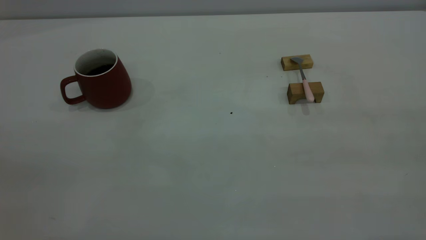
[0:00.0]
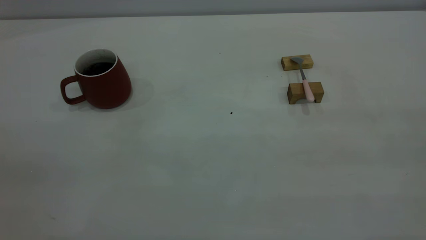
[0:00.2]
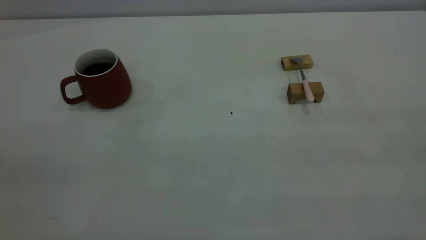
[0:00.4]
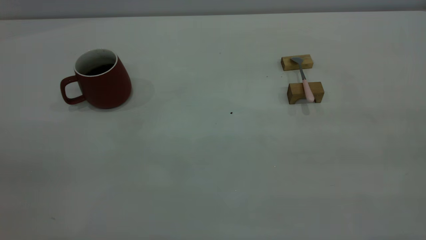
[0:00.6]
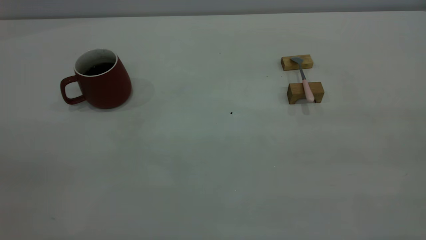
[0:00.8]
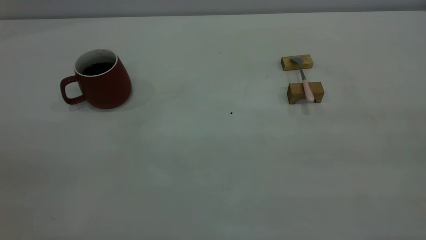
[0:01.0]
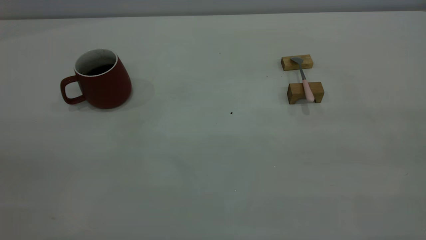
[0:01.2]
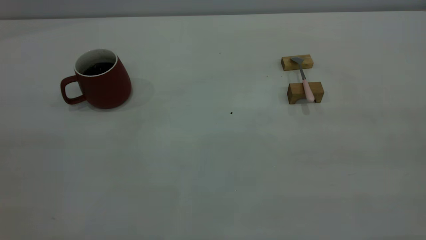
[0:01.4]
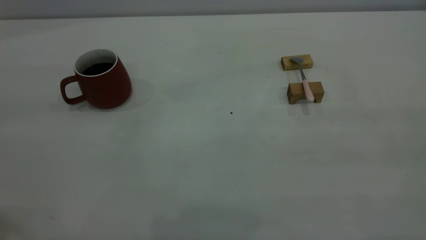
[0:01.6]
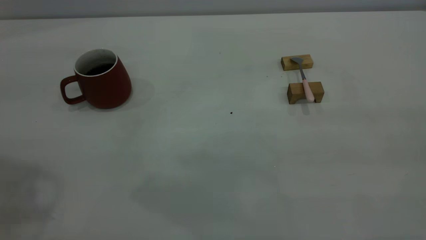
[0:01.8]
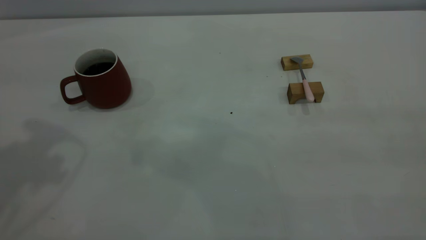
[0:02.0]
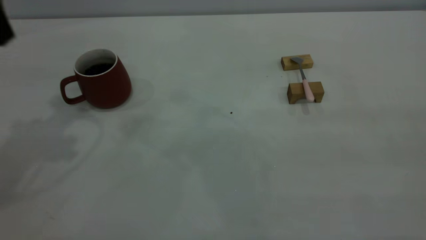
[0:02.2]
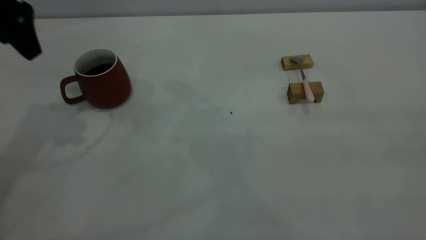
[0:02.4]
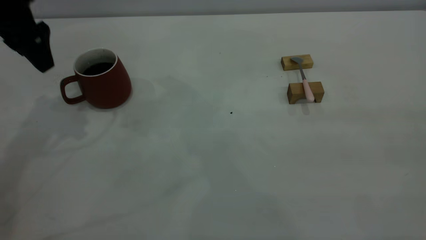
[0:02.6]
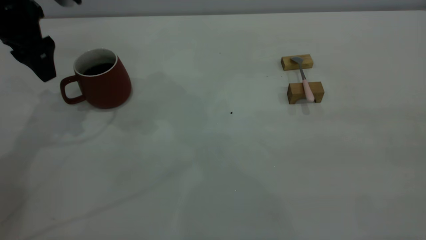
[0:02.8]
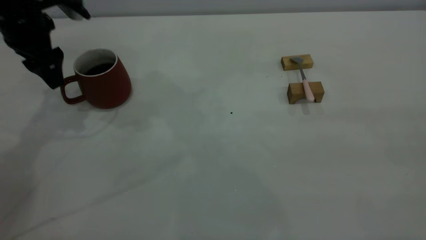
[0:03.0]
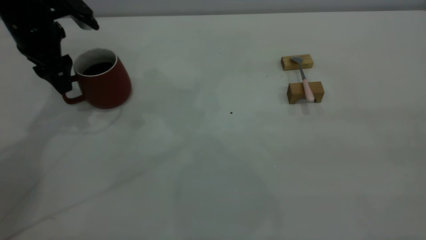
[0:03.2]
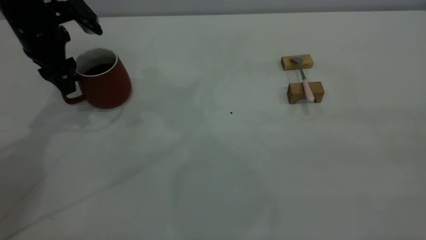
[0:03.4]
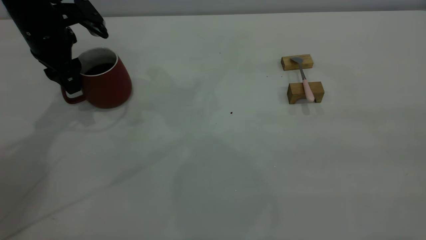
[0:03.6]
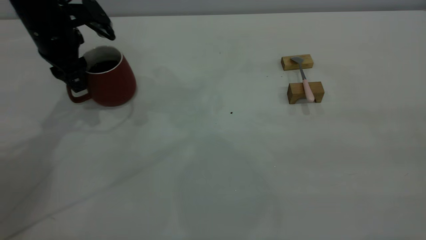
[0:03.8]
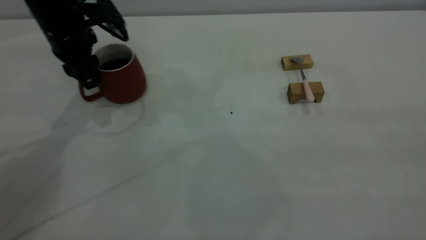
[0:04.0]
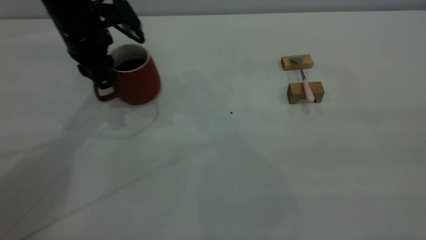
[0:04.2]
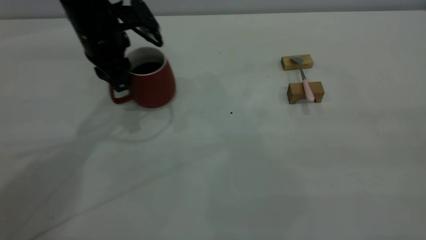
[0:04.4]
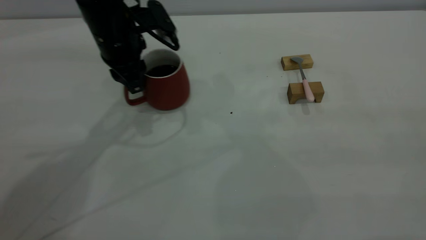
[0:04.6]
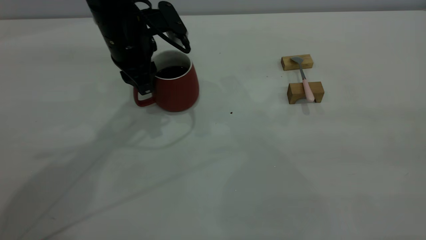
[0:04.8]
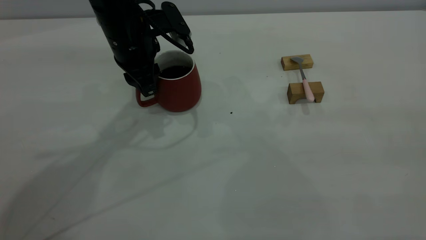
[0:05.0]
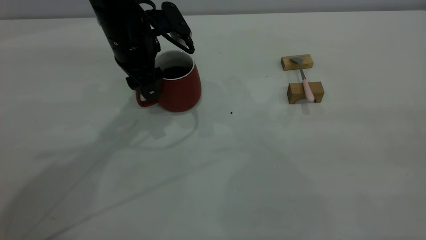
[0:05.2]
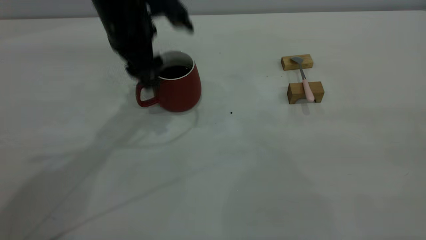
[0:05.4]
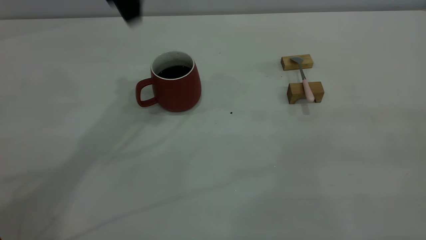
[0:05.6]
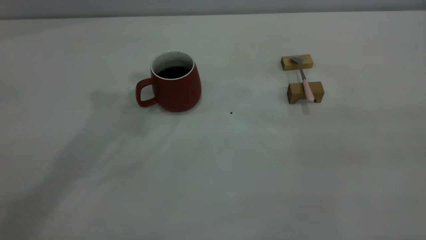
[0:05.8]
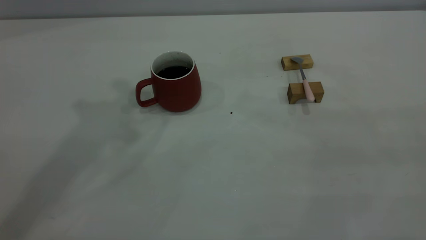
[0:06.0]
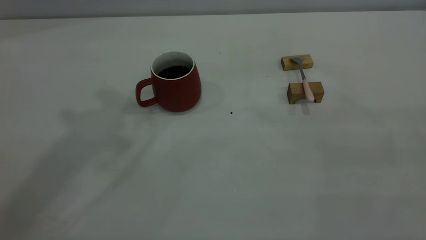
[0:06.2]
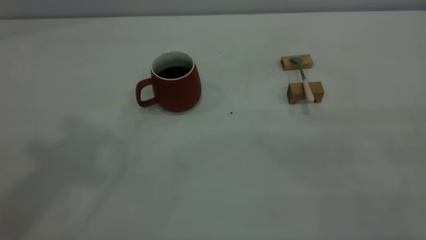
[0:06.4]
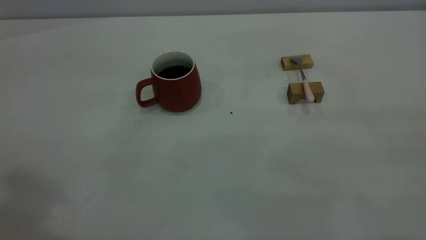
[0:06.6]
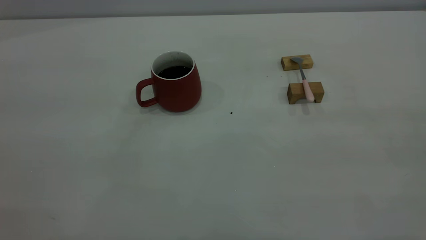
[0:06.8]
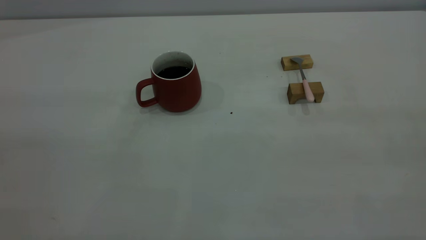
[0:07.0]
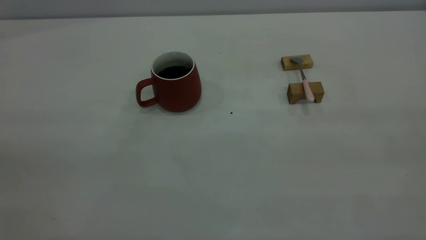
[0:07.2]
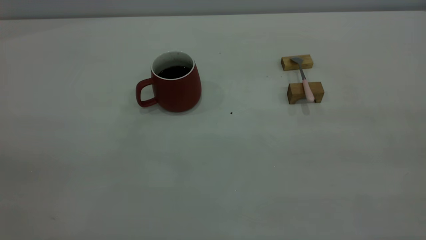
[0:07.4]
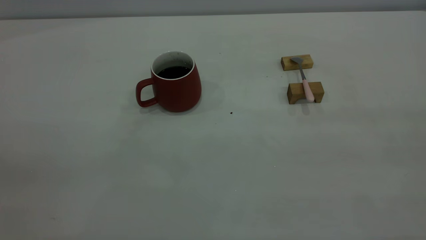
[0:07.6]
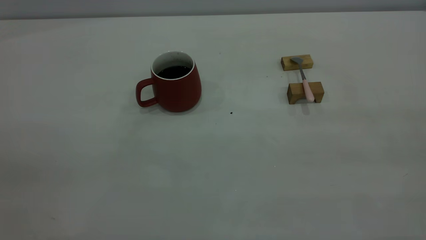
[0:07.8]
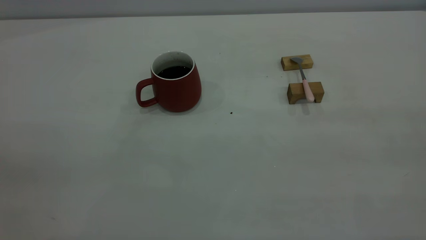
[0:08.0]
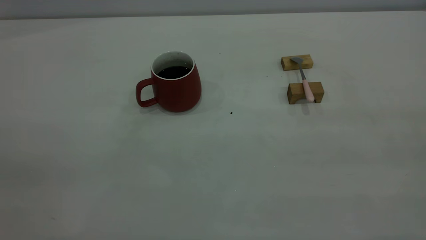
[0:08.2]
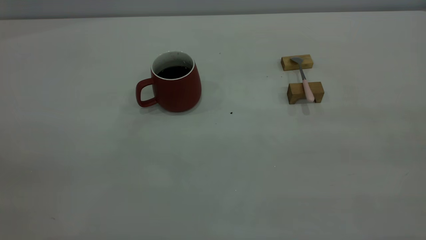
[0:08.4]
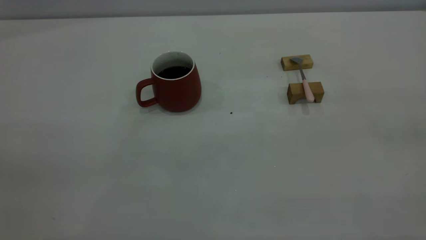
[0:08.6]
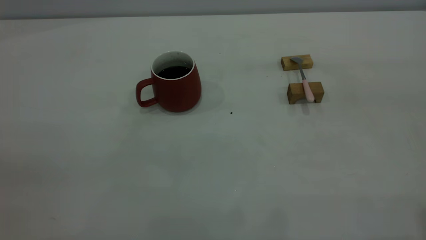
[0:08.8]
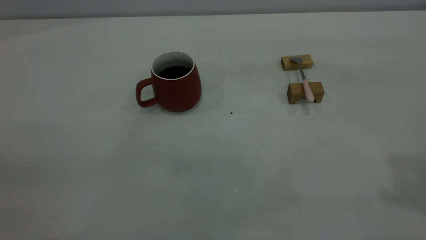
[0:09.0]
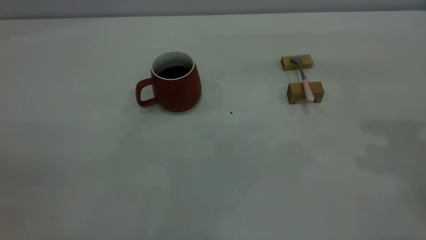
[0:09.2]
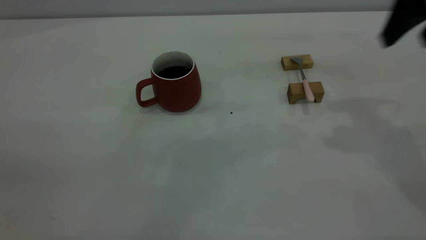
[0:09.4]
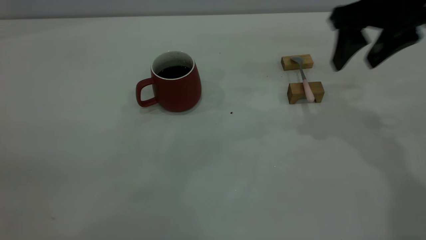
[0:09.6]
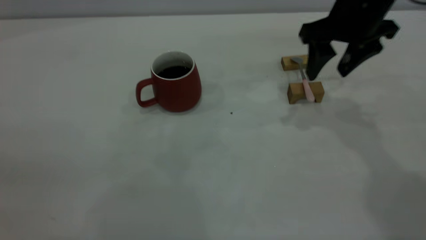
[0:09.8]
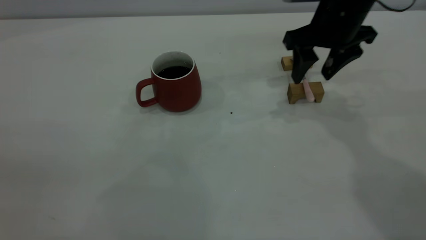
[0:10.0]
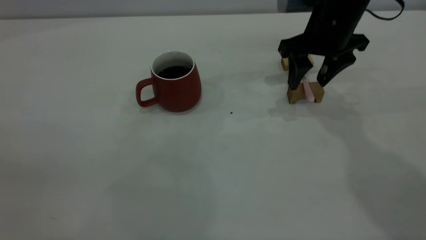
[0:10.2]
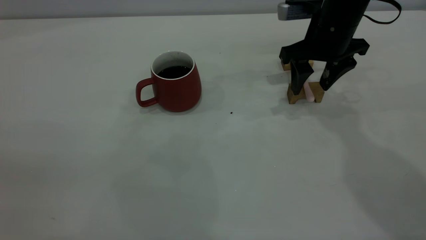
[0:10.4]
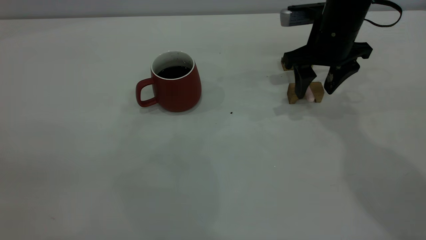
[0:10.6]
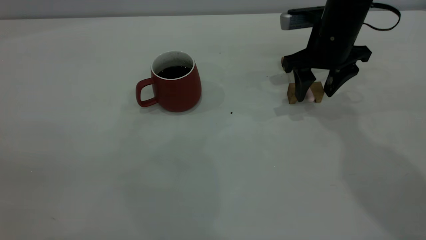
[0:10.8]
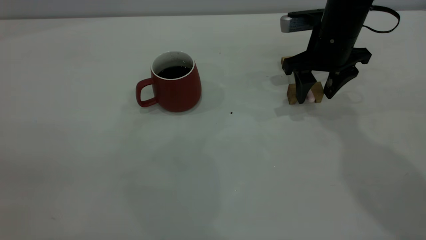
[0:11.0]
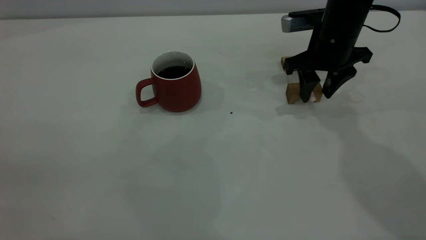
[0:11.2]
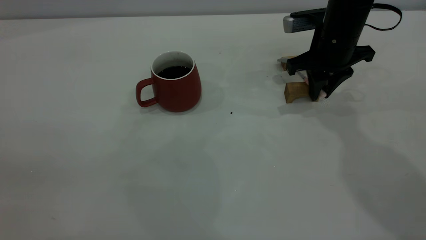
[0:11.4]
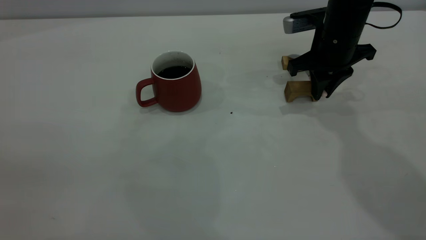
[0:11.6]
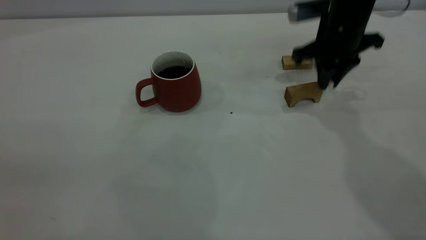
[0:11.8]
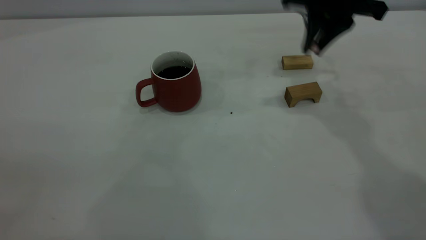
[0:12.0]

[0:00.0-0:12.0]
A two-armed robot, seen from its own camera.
Step, 0:00.0 to 0:05.4: Move the cup with coffee to the center of view.
Step, 0:05.6 to 0:11.6: Pick up the spoon.
0:01.6 to 0:03.0: The left gripper is displaced forward and downward by approximately 35 cm, and opens its fingers.
0:03.0 to 0:04.4: The left gripper travels to the right by approximately 10 cm, and closes.
0:04.4 to 0:06.0: The left gripper travels upward by about 30 cm, and opens, then closes again.
0:09.0 to 0:10.4: The right gripper is displaced downward, forward and to the left by roughly 35 cm.
0:10.4 to 0:12.0: The right gripper moves upward, approximately 10 cm, and closes.

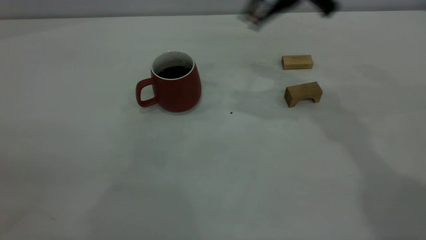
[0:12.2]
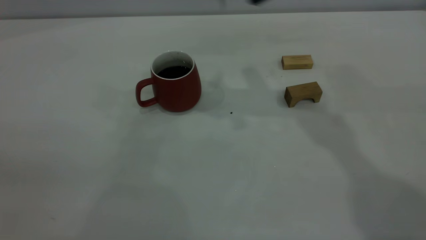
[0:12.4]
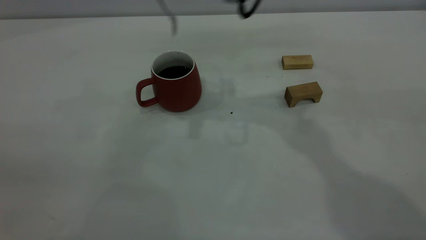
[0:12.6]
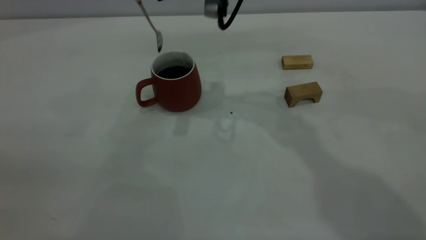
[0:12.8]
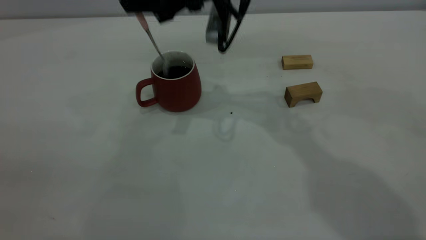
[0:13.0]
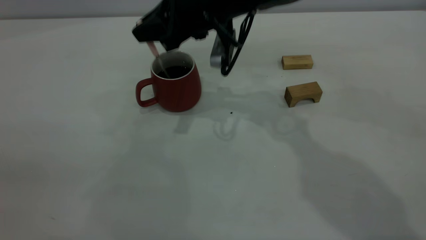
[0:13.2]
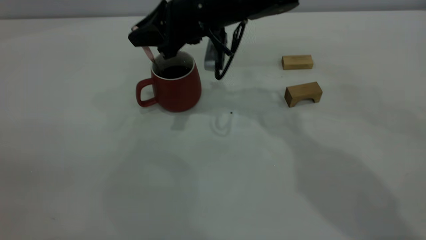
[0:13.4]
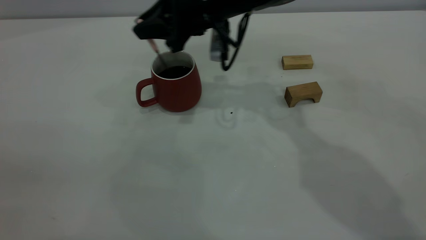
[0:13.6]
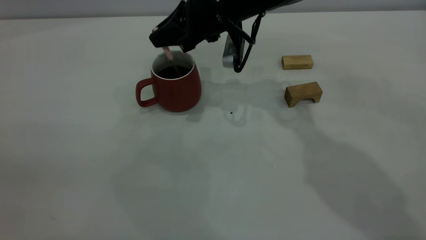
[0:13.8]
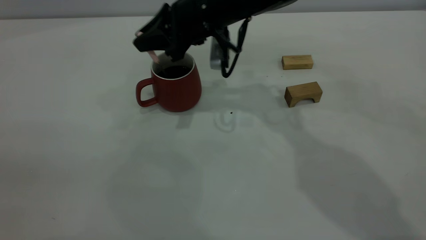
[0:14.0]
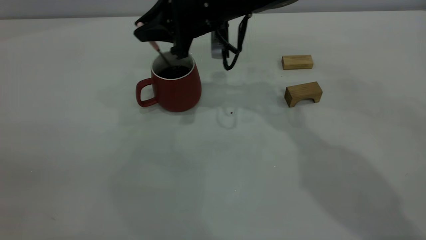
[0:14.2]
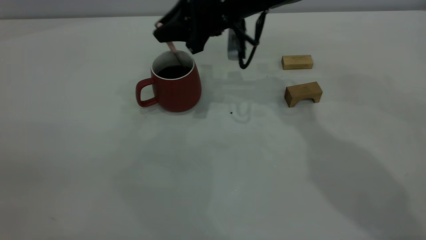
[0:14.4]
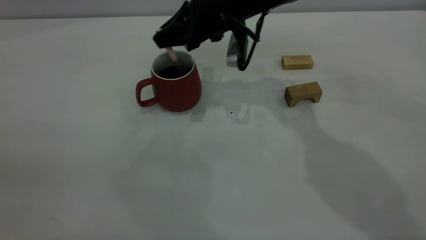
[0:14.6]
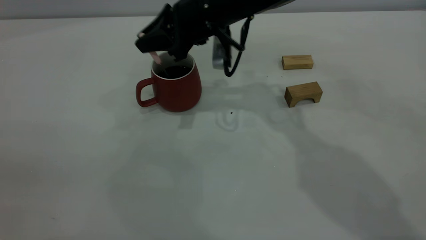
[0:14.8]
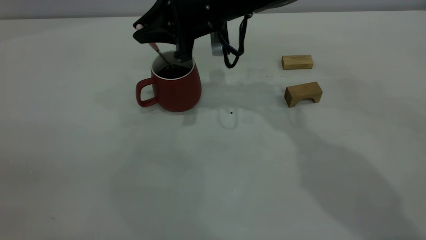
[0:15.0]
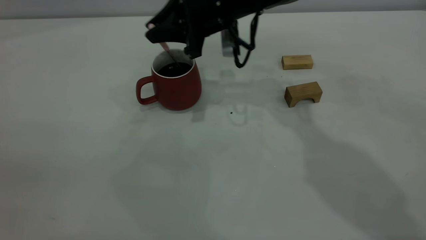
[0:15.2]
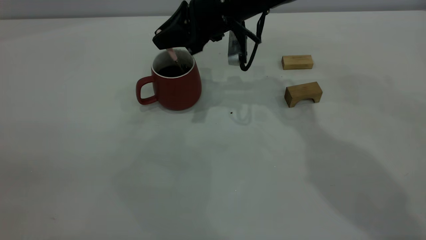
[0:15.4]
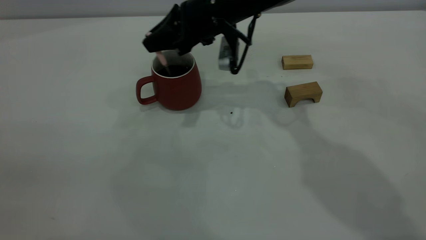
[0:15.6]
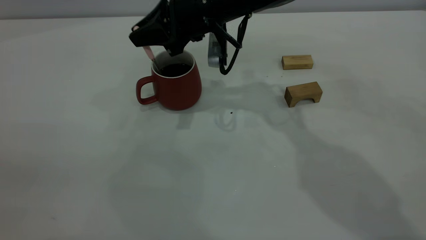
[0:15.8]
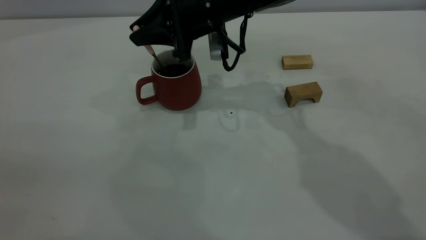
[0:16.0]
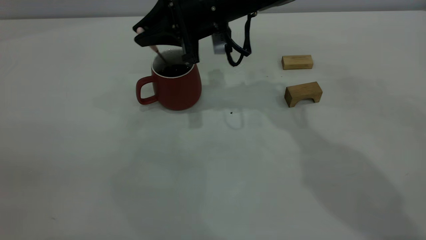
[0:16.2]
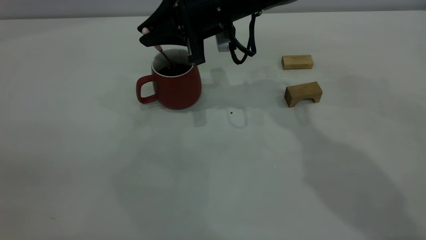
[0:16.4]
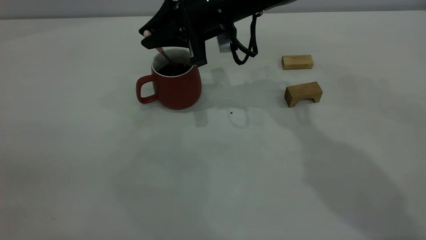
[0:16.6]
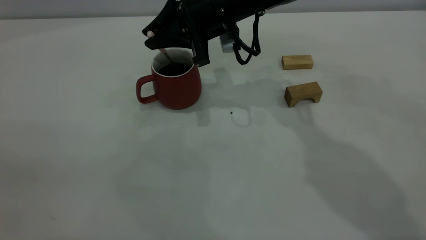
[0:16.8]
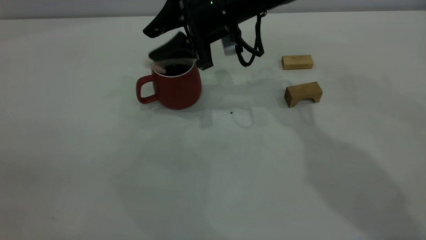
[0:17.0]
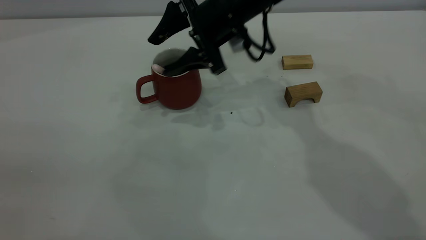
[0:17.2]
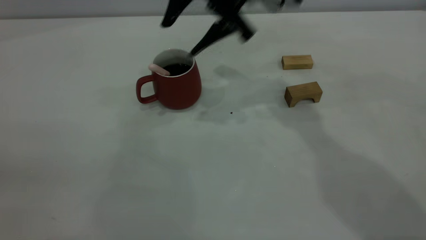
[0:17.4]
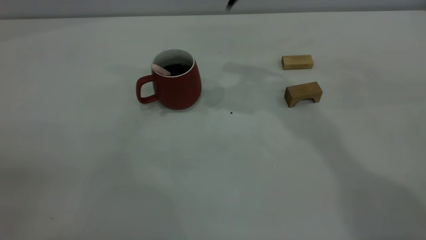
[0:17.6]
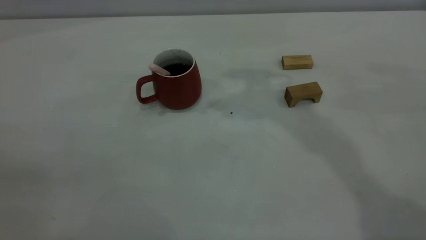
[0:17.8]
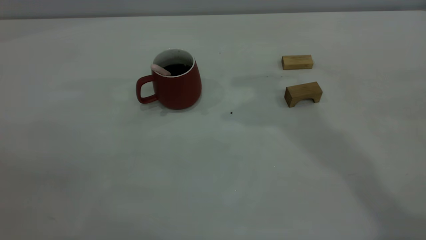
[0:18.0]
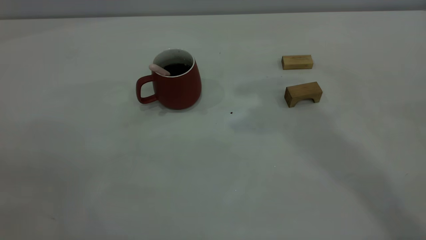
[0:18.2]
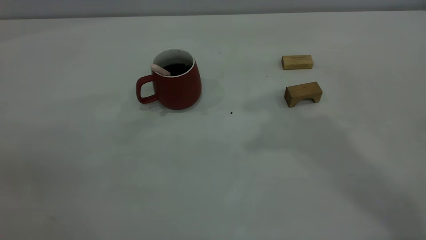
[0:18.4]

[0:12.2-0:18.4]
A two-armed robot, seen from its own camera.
Step, 0:12.2 to 0:17.4: Stir the coffee in the cup.
0:12.2 to 0:13.8: The right gripper travels downward and to the left by roughly 15 cm.
0:16.8 to 0:18.4: The right gripper is displaced upward and backward by roughly 35 cm, and opens and closes again.
